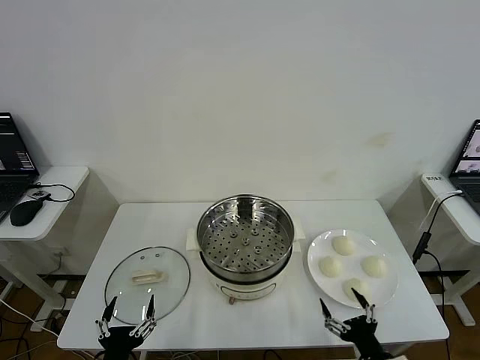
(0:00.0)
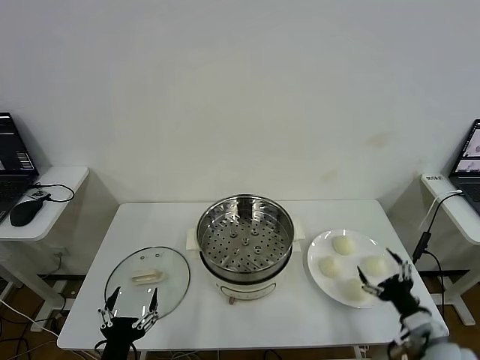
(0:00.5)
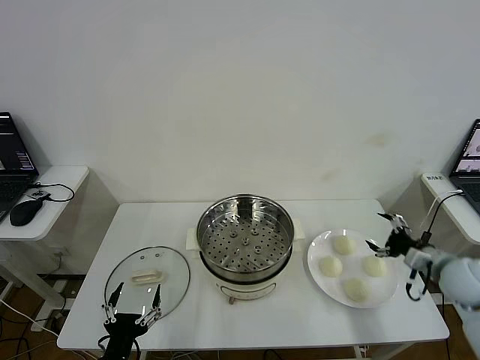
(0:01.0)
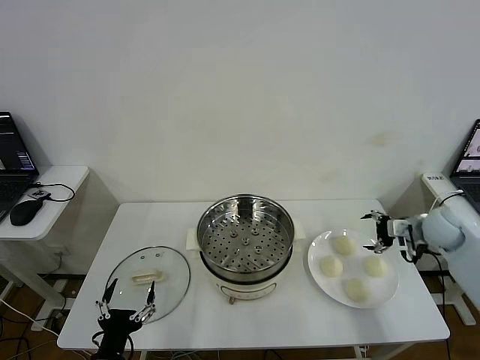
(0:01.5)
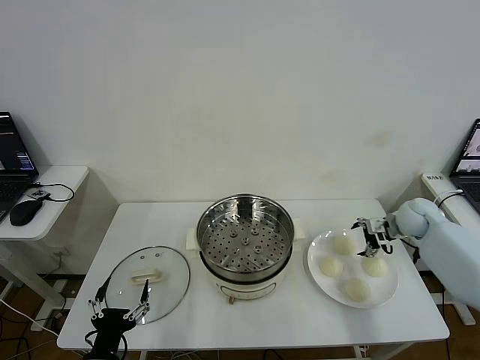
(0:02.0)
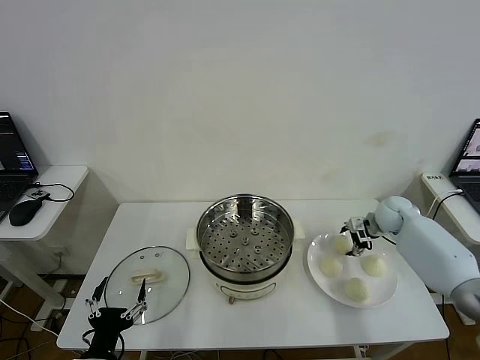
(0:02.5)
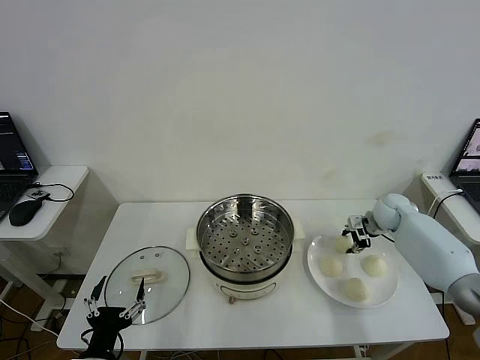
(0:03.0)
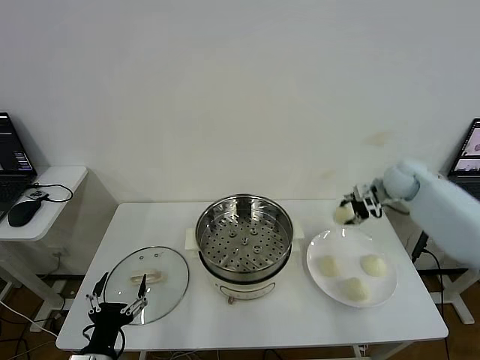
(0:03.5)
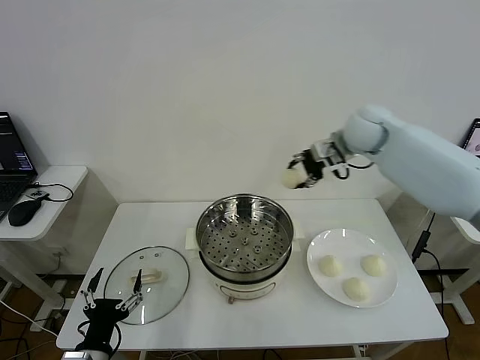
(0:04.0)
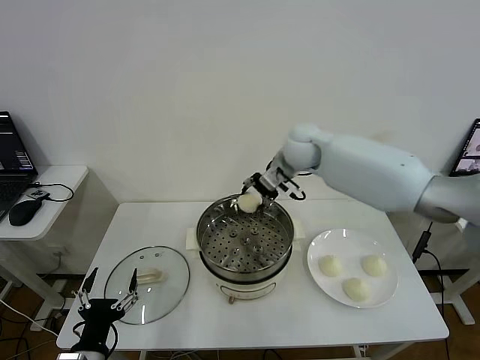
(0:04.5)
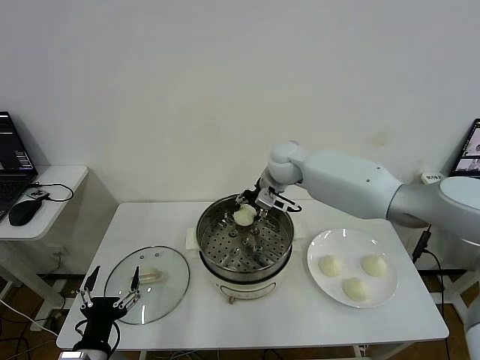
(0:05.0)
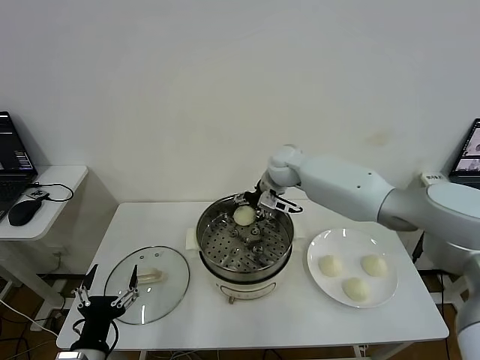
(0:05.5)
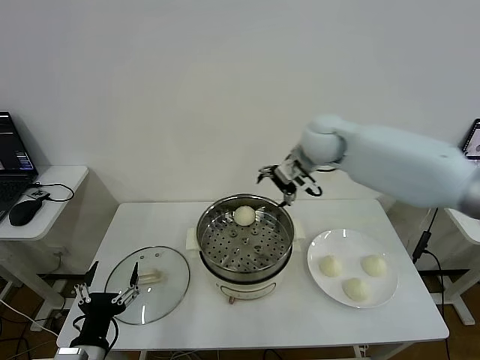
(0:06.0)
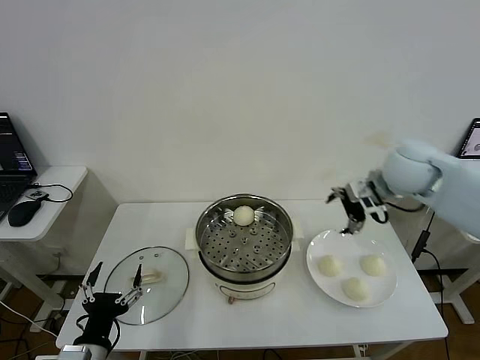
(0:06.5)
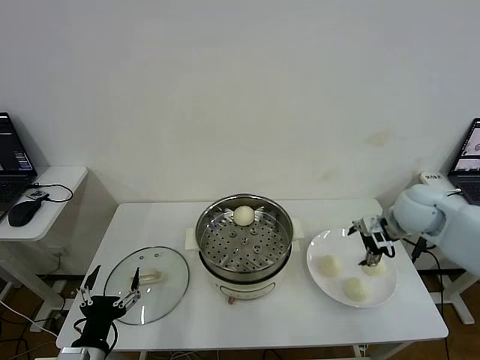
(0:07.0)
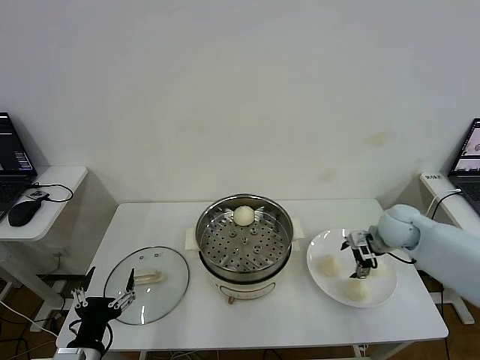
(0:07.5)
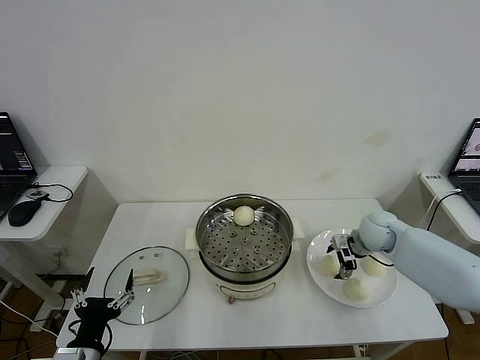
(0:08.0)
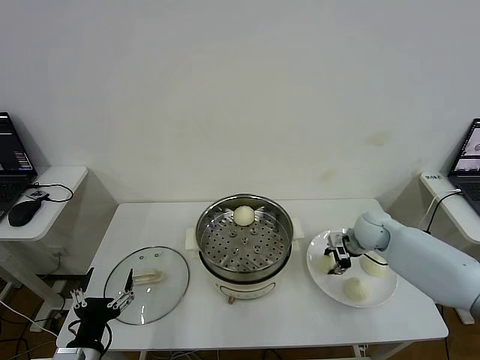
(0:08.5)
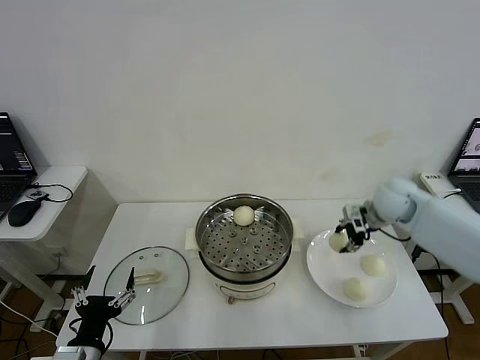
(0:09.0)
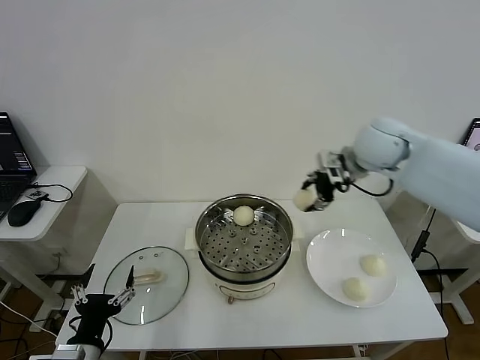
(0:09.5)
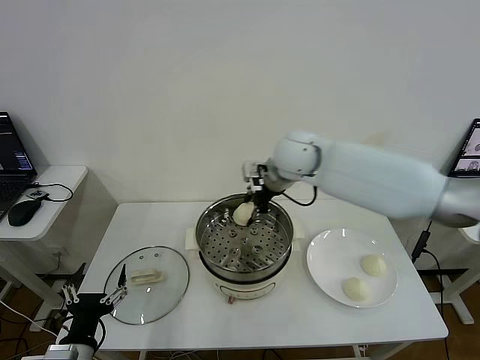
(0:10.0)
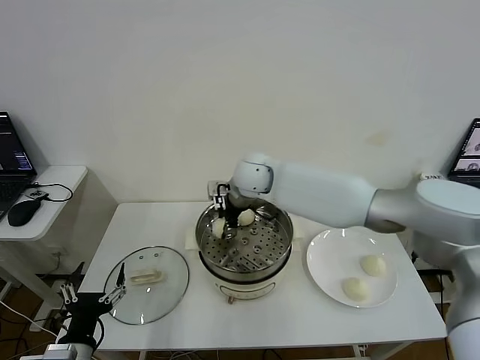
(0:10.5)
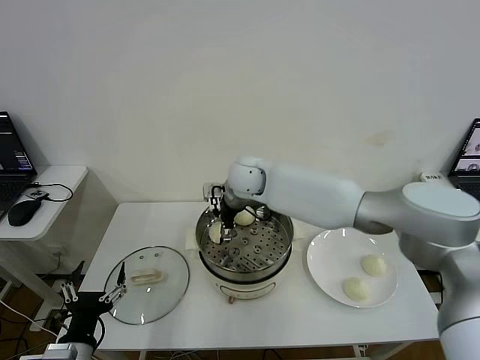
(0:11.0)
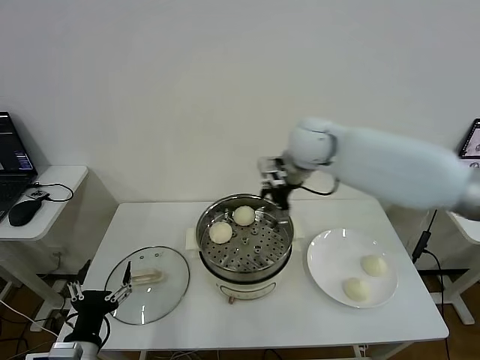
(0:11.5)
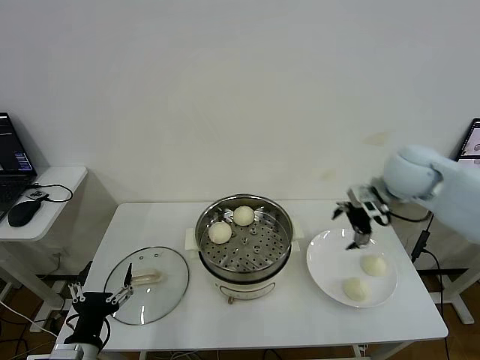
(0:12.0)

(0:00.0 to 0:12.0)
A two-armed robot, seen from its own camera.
Step, 0:00.0 - 0:02.5: Grasp the baozi in the plate with right gripper.
Step, 0:03.0 - 0:05.5: Place the baozi on the steamer with right gripper.
Step, 0:06.0 - 0:08.5: Grasp the baozi in the plate with right gripper.
Step, 0:09.0 - 0:10.5: Place the baozi on the steamer with right gripper.
0:02.0 - 0:04.0: The right gripper moves upward and to the left, approximately 30 cm, and closes.
0:04.0 - 0:06.0: The right gripper travels backward by some 5 cm, travels to the left and back again, approximately 10 cm each way, and opens up.
0:06.0 - 0:08.0: The right gripper moves downward and to the right, some 25 cm.
0:08.0 - 0:10.0: The right gripper moves to the left and upward, approximately 30 cm, and closes its fingers.
0:10.0 - 0:12.0: The right gripper travels to the right by some 25 cm, and opens its fingers.

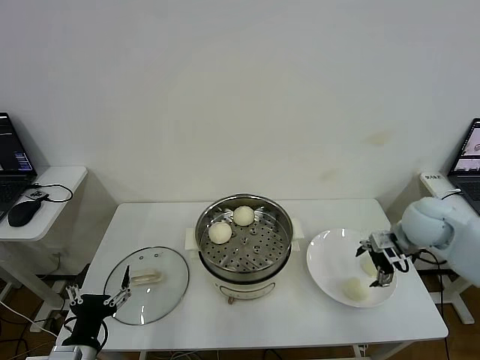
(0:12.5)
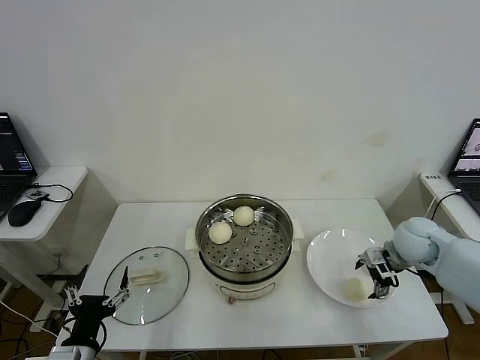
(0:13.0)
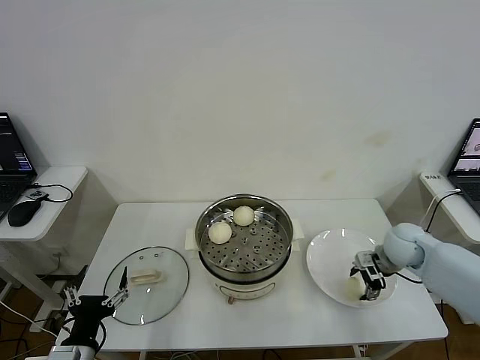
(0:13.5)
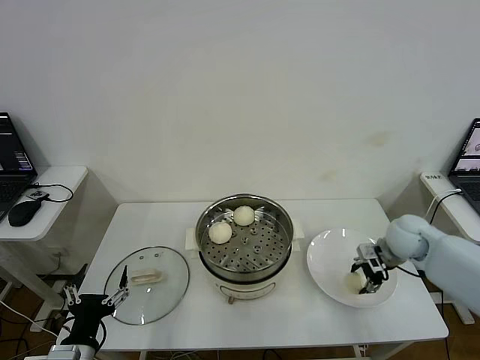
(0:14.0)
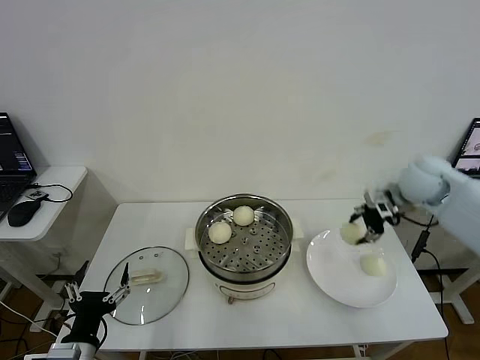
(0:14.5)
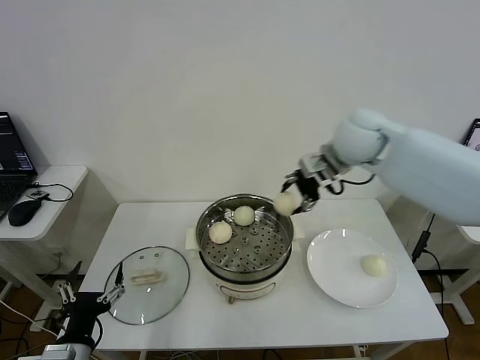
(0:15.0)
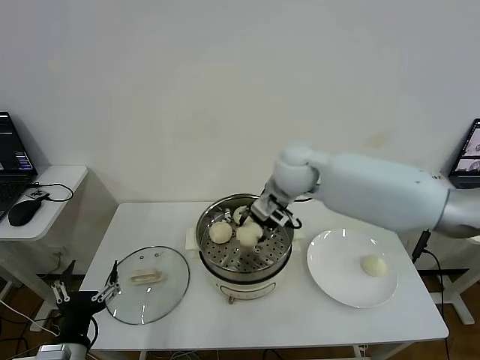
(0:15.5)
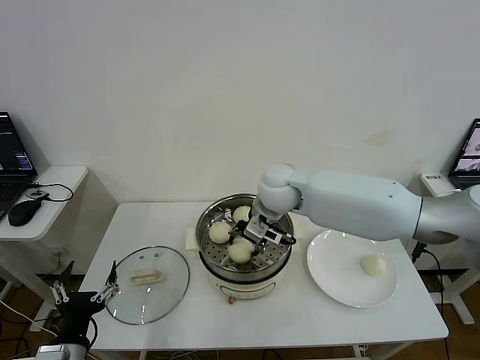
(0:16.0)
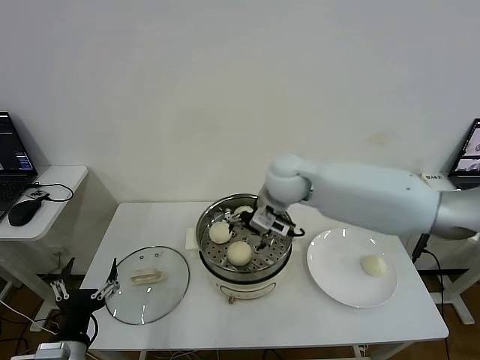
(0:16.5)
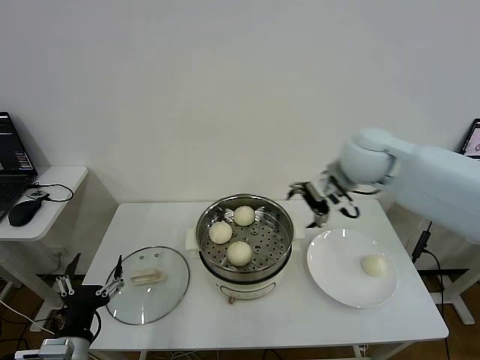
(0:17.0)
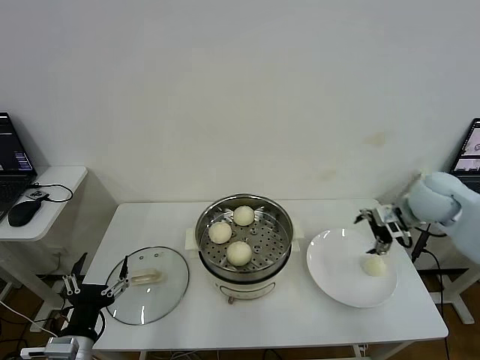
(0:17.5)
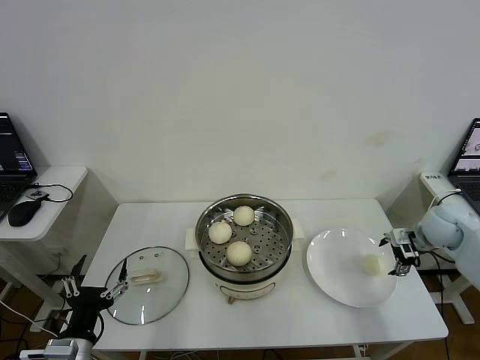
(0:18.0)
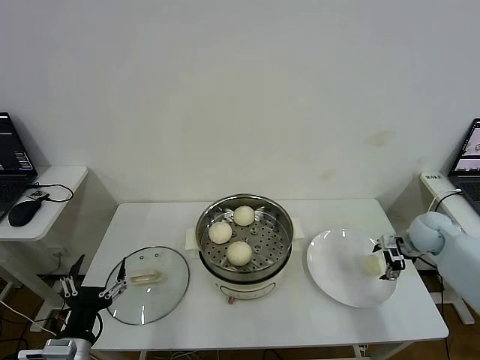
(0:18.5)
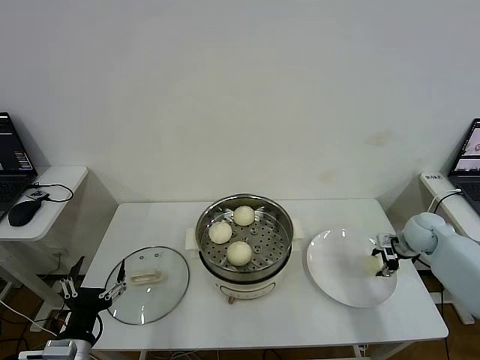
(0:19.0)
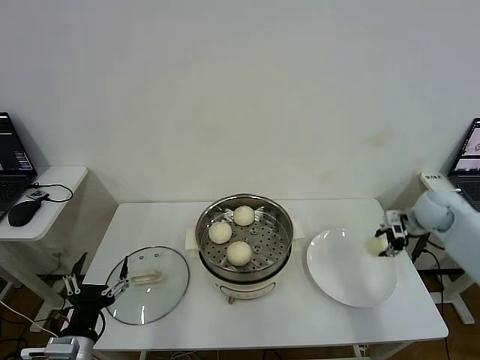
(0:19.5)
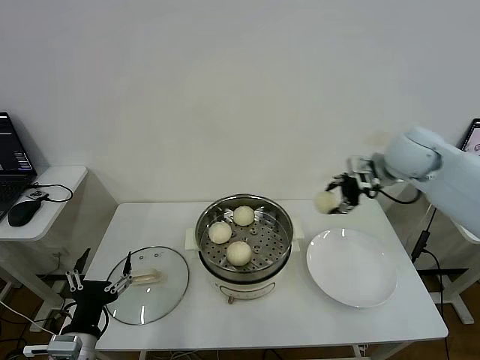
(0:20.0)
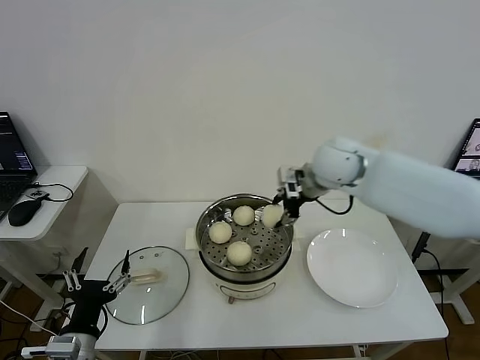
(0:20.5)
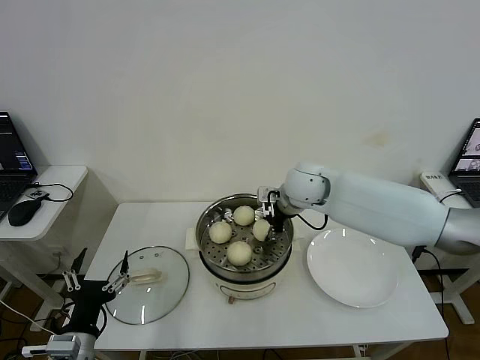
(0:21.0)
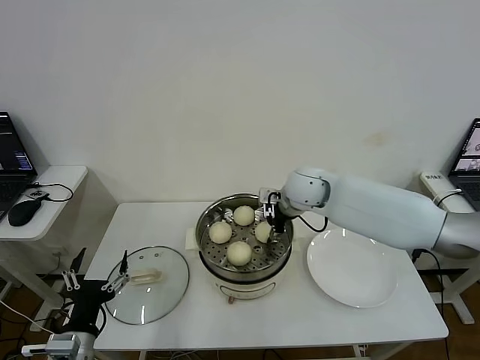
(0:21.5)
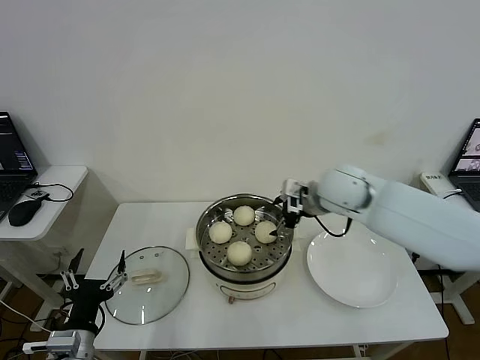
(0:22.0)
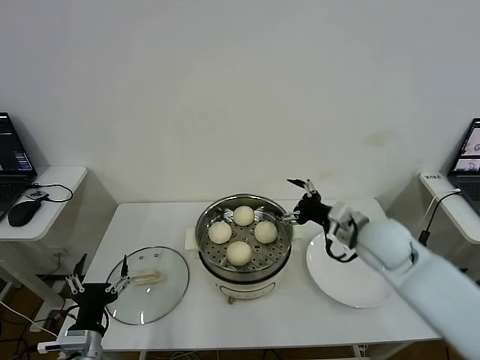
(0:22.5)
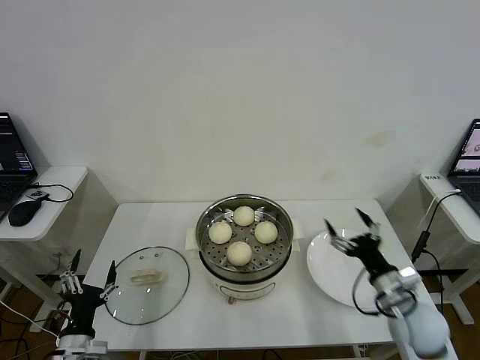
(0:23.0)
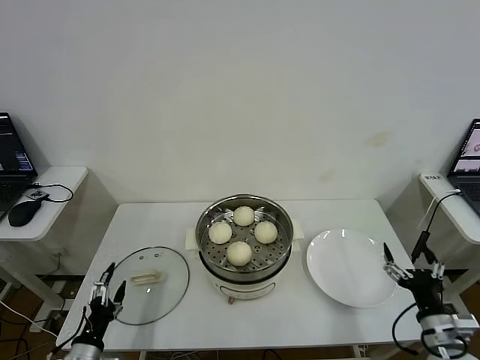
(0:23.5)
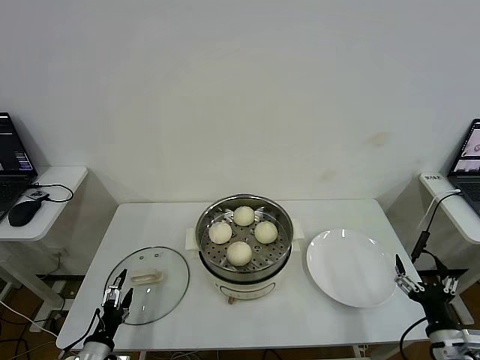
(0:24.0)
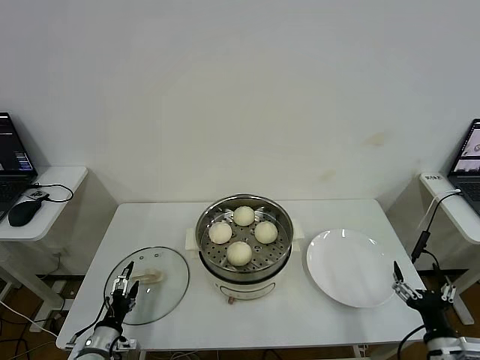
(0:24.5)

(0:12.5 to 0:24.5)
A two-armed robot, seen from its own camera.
Step, 0:14.0 - 0:16.0: Place the baozi on the steamer with right gripper.
Step, 0:16.5 - 0:19.0: Grasp the baozi in the plate with right gripper.
Step, 0:19.5 - 0:21.5: Place the baozi on the steamer with right gripper.
0:12.5 - 0:14.5: The right gripper travels upward and forward by roughly 10 cm, and closes its fingers.
0:14.5 - 0:16.5: The right gripper is displaced to the left by some 25 cm, and opens its fingers.
0:16.5 - 0:18.5: The right gripper is displaced to the right and downward by about 40 cm.
0:18.5 - 0:20.5: The right gripper goes approximately 35 cm to the left and upward, and closes up.
0:20.5 - 0:22.5: The right gripper travels backward, downward and to the right by roughly 20 cm, and opens its fingers.
0:22.5 - 0:24.5: The left gripper shifts about 10 cm downward. Meanwhile the right gripper is displaced backward, downward and to the right by about 30 cm.

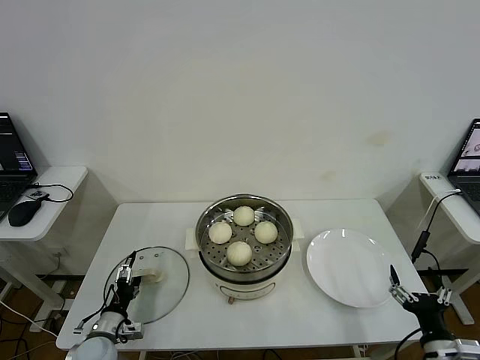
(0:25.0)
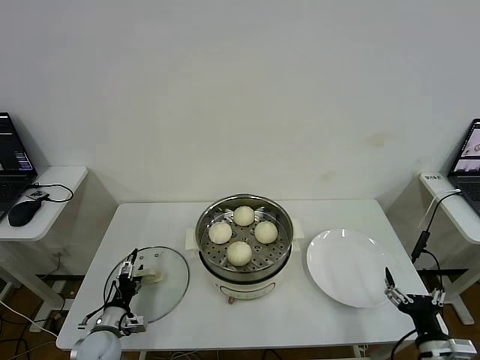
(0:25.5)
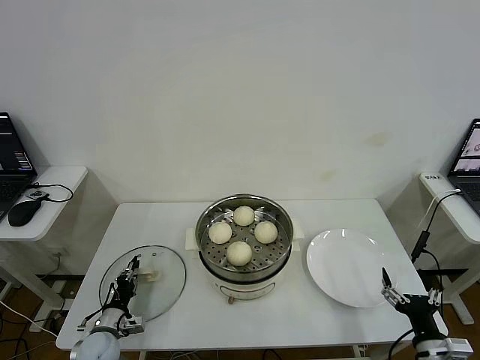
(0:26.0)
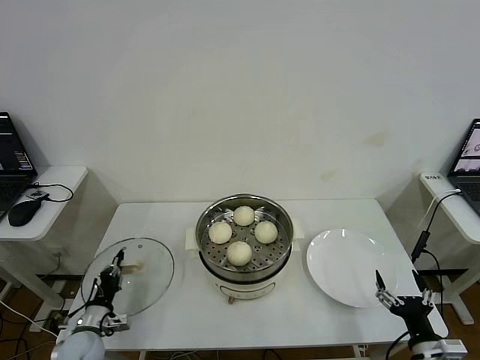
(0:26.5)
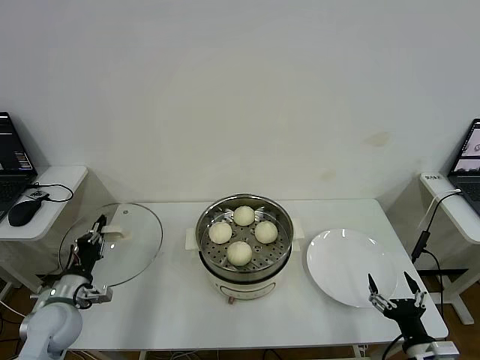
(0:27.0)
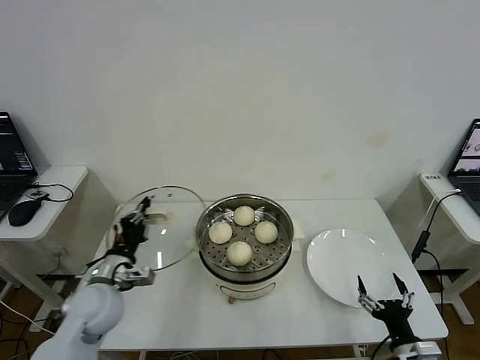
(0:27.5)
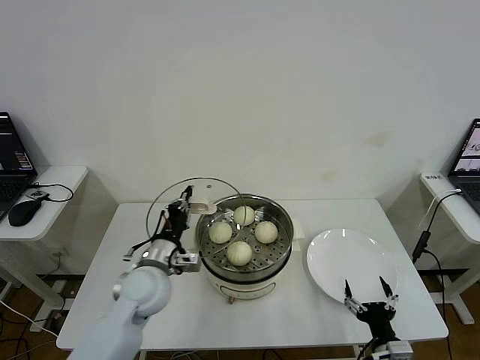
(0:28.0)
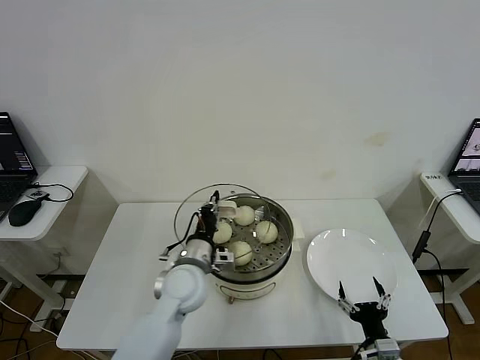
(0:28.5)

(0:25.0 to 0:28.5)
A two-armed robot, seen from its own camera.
0:25.0 - 0:27.0: The left gripper travels upward by about 10 cm, and closes.
0:27.0 - 0:28.5: The left gripper moves to the right, roughly 25 cm. Meanwhile the right gripper moves to the left and downward, approximately 10 cm.
